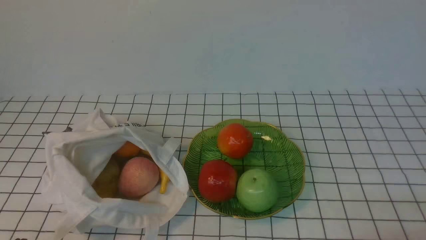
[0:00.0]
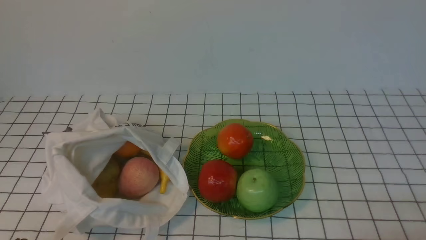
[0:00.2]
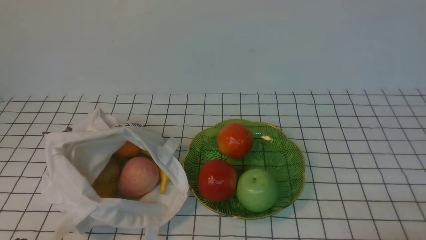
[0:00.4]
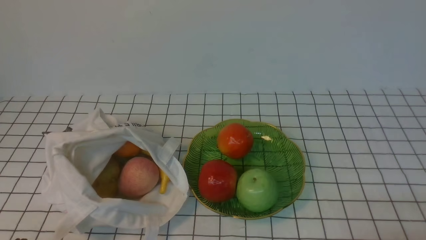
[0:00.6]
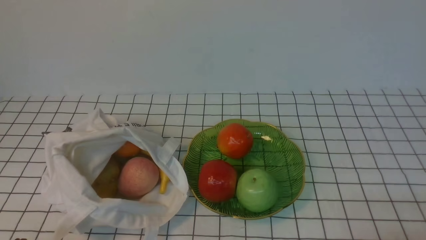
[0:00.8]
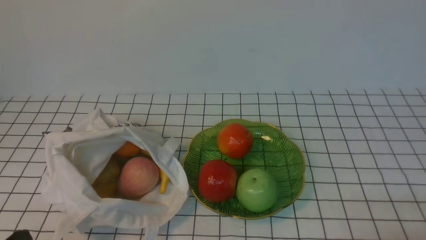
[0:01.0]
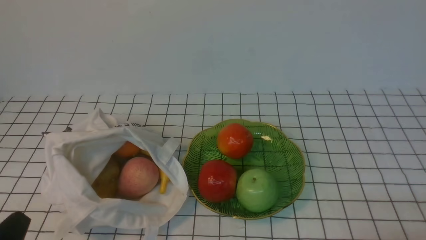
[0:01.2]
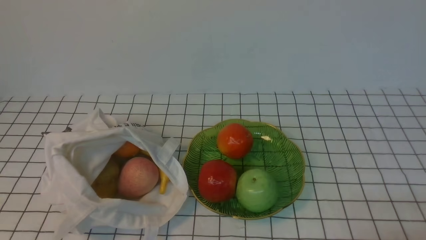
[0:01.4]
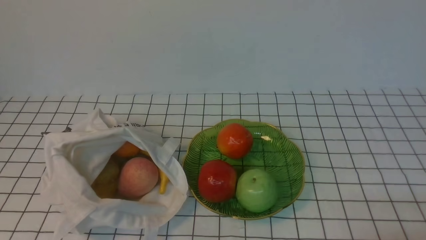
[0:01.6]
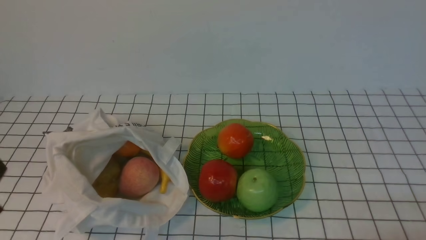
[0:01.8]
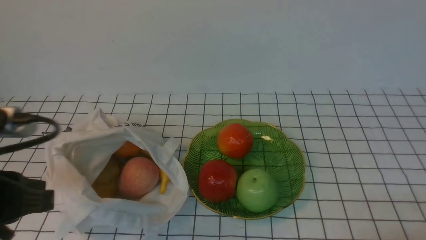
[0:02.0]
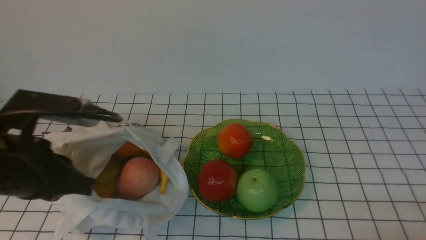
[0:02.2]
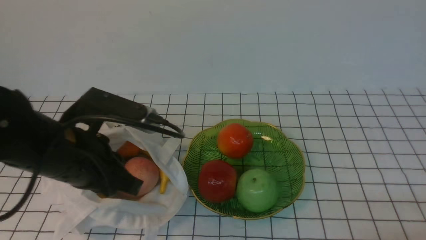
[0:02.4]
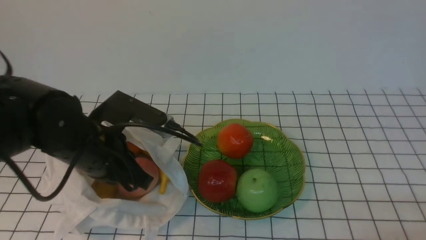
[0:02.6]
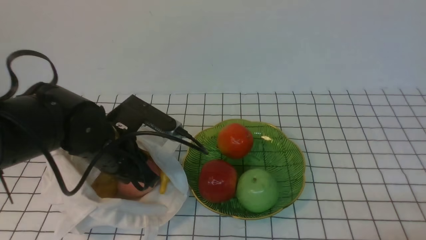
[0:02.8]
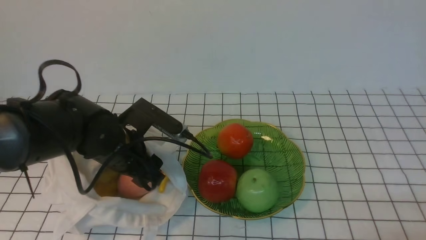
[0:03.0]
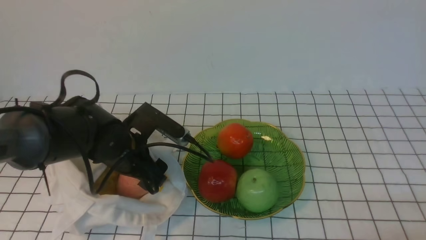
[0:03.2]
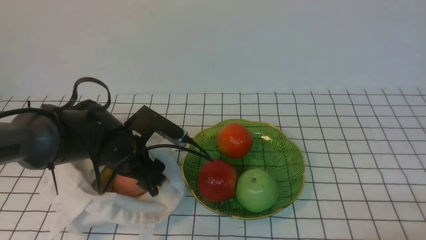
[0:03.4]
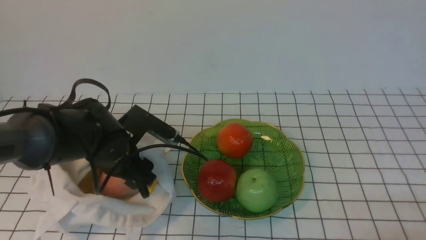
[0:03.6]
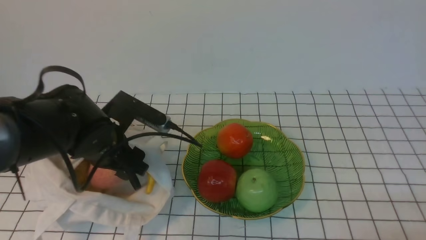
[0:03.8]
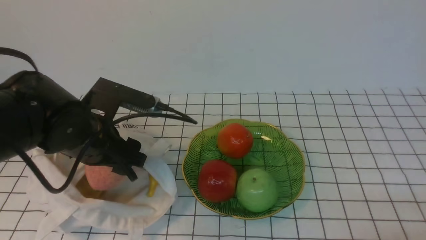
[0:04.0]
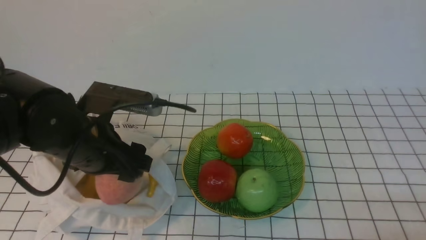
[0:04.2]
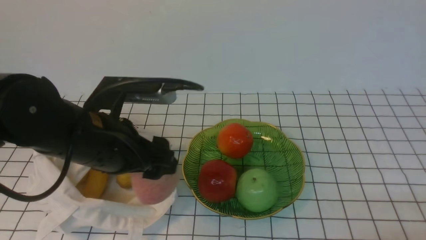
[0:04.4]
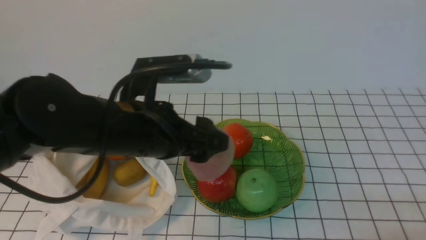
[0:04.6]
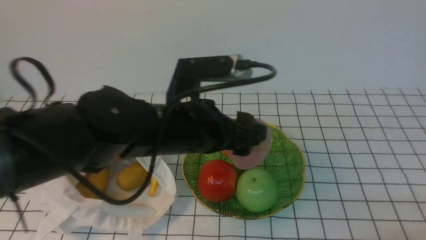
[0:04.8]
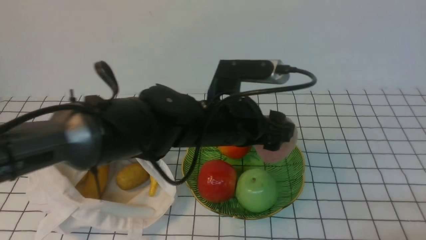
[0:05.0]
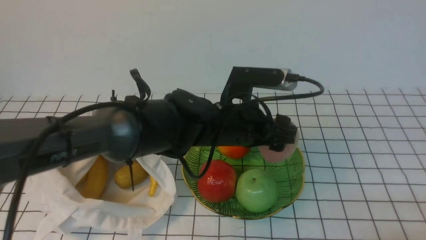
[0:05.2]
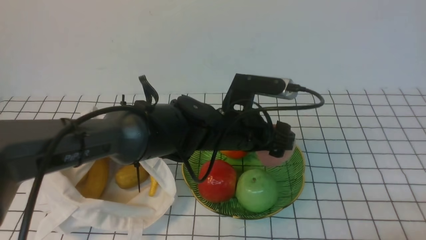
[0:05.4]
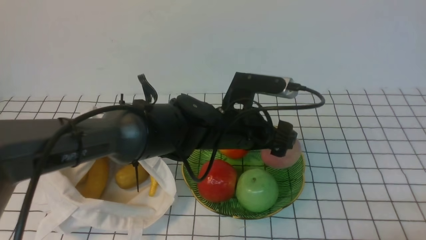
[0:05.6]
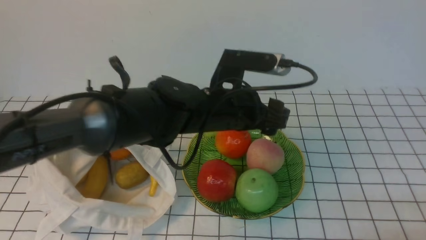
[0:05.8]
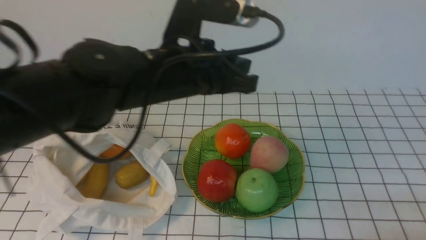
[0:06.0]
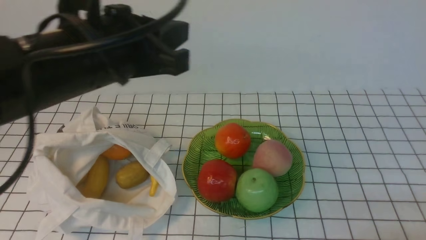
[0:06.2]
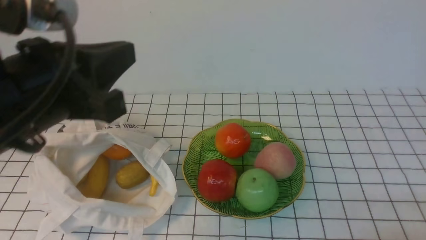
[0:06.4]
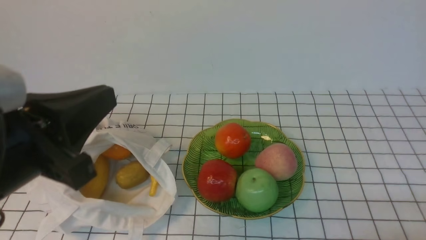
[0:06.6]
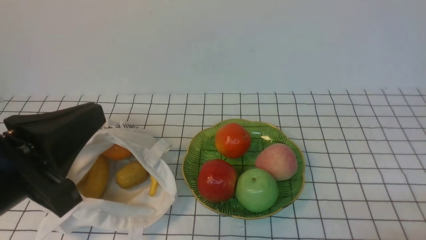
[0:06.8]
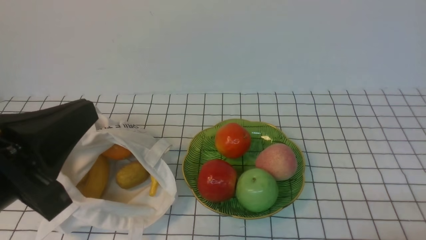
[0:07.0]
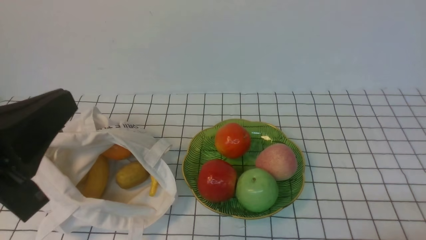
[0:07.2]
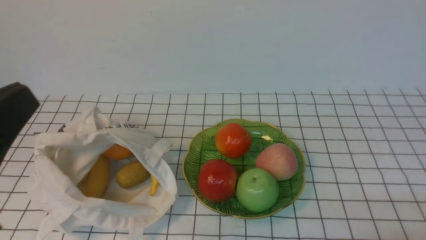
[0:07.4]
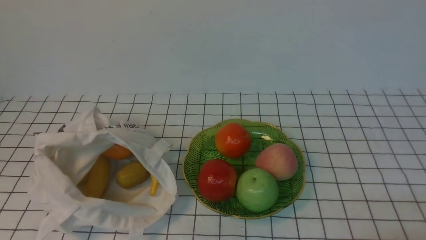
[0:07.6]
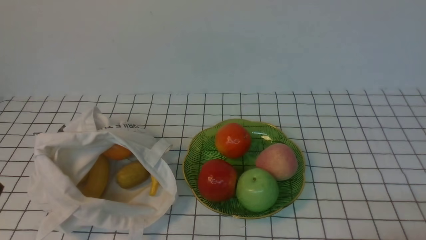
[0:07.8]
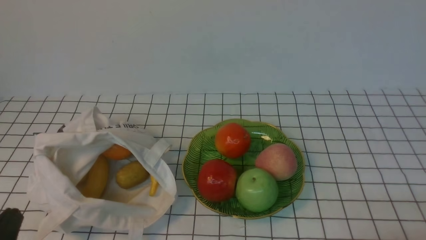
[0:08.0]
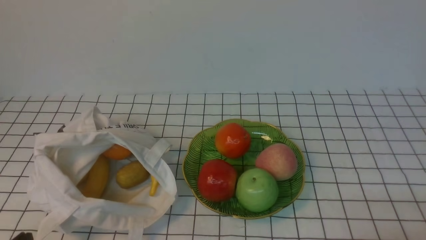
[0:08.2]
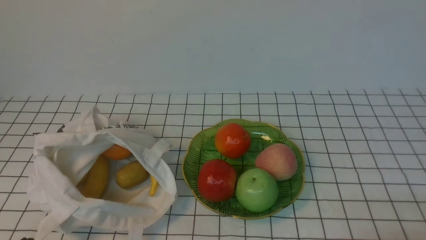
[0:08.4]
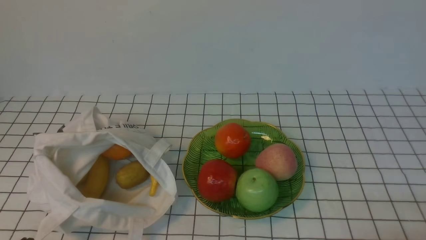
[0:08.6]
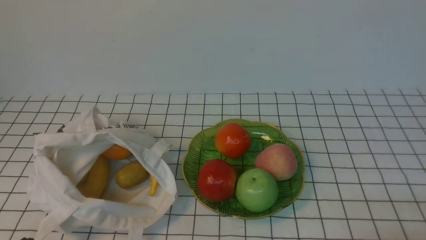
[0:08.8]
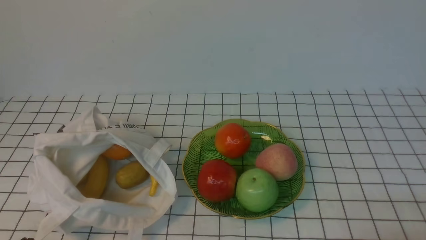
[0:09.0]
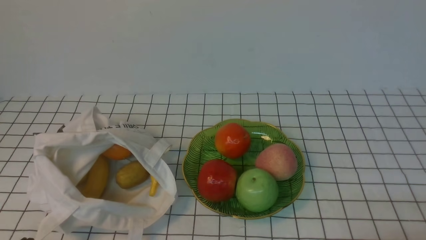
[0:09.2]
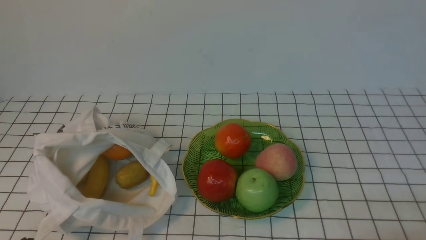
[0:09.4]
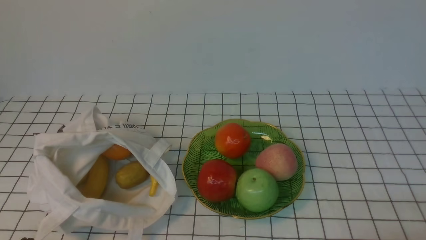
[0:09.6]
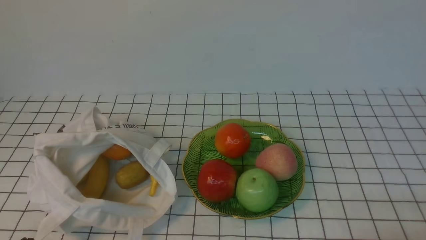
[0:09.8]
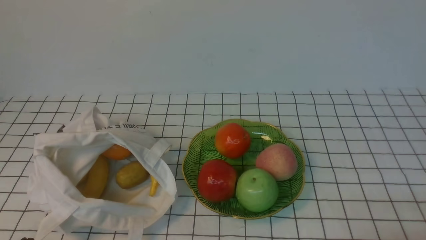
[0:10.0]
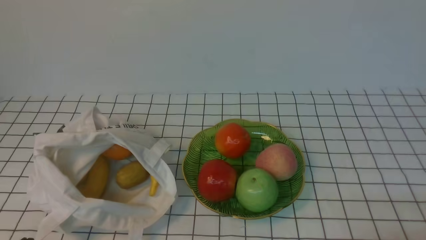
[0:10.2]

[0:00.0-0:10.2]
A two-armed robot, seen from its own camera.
Step, 0:00.0 to 0:04.0: use the left arm to grab a peach from the bag.
Step, 0:04.2 to 0:05.6: use the left arm to put the peach into the empty plate on the right.
0:01.4 to 0:03.0: The left gripper goes about 25 cm forward and to the right, and opens up.
0:03.0 to 0:04.4: The left gripper travels upward by about 5 cm.
0:04.4 to 0:05.8: The left gripper travels to the right and forward by some 15 cm.
0:05.8 to 0:07.2: The left gripper goes some 30 cm backward, to the left and upward, and closes.
0:07.2 to 0:08.8: The left gripper goes some 20 cm downward.
0:08.8 to 0:10.2: Both grippers stay about where they are.
